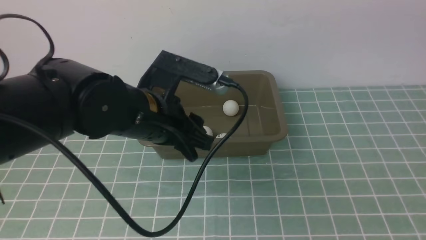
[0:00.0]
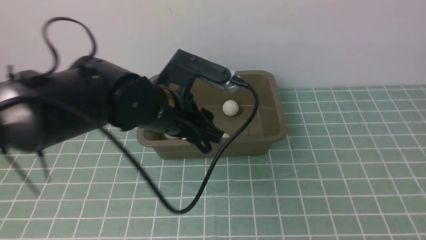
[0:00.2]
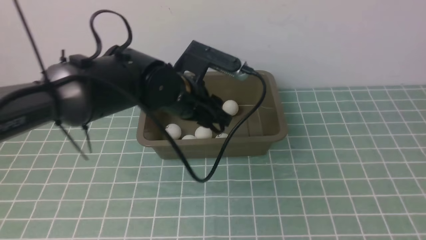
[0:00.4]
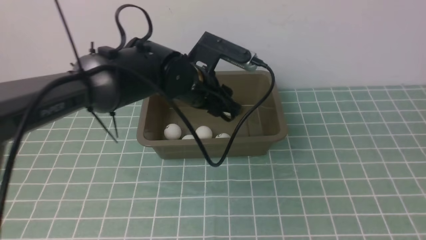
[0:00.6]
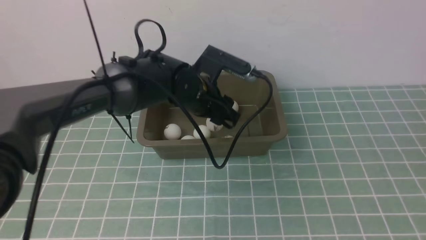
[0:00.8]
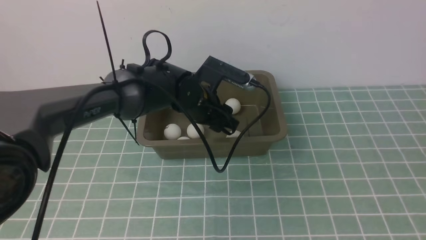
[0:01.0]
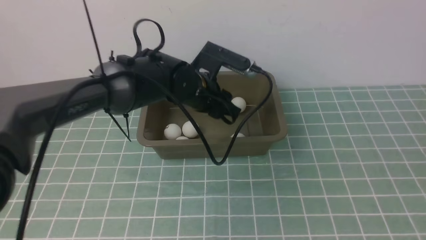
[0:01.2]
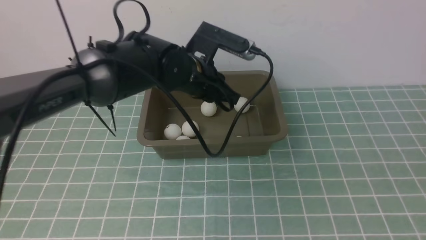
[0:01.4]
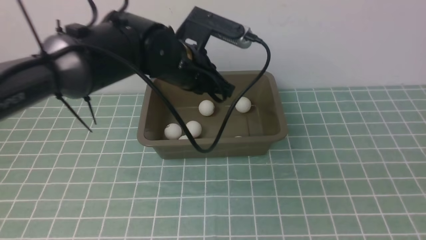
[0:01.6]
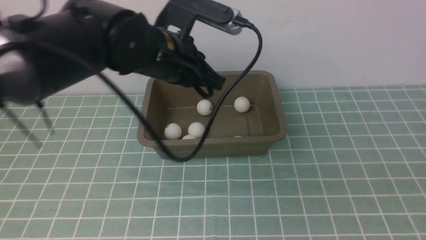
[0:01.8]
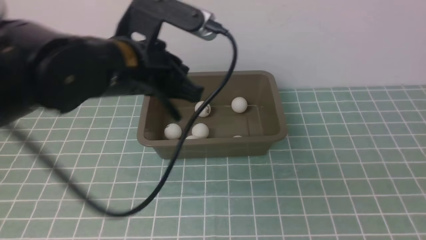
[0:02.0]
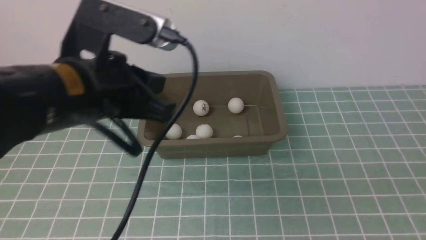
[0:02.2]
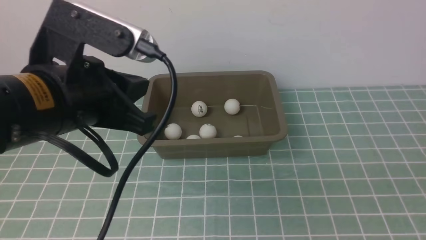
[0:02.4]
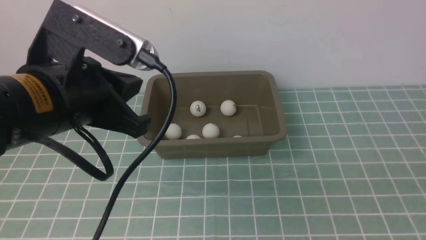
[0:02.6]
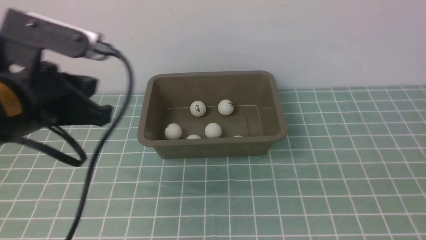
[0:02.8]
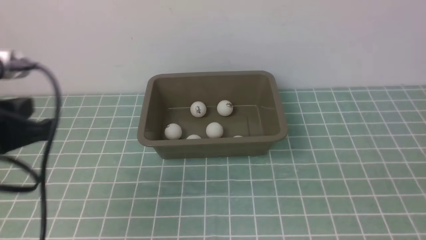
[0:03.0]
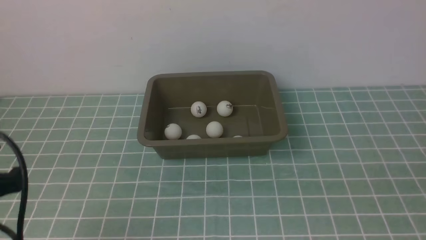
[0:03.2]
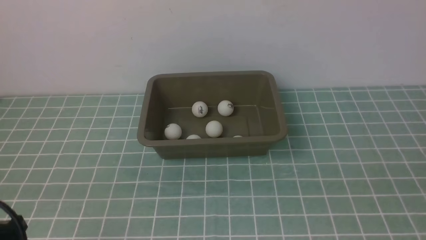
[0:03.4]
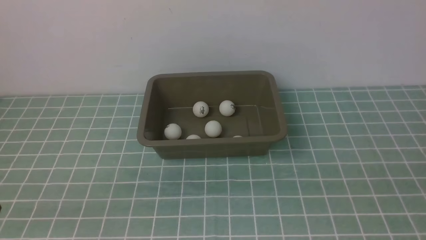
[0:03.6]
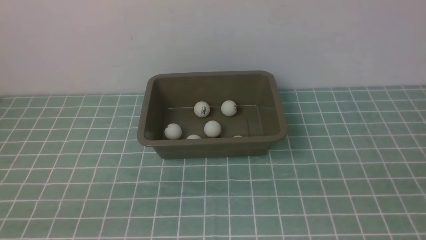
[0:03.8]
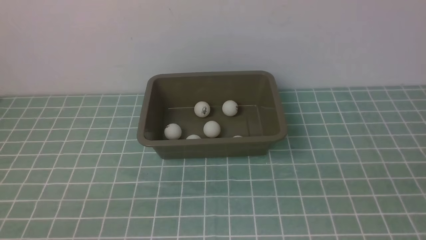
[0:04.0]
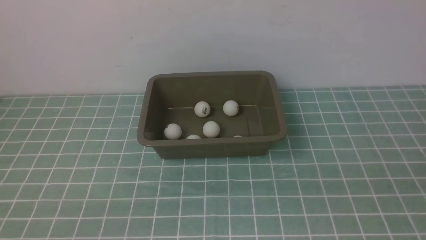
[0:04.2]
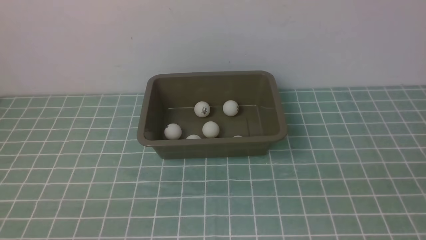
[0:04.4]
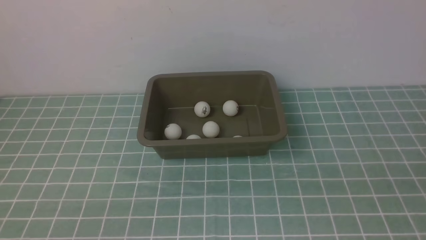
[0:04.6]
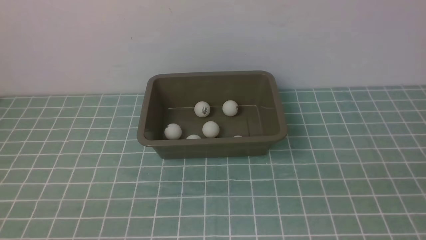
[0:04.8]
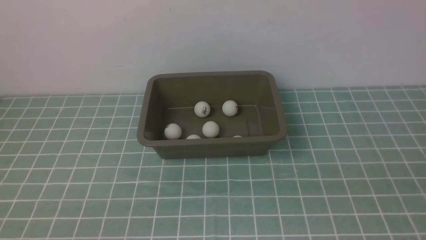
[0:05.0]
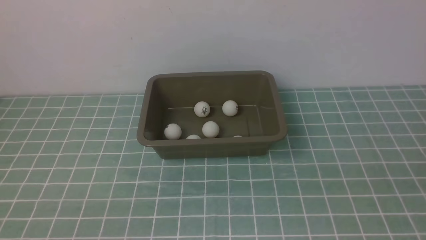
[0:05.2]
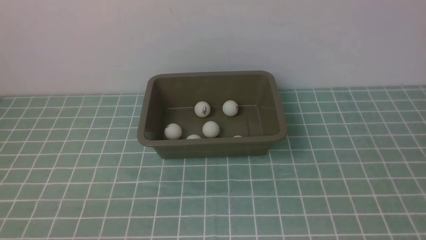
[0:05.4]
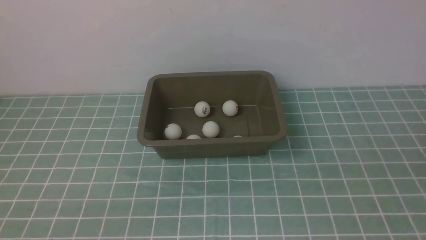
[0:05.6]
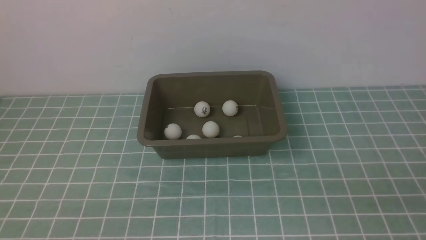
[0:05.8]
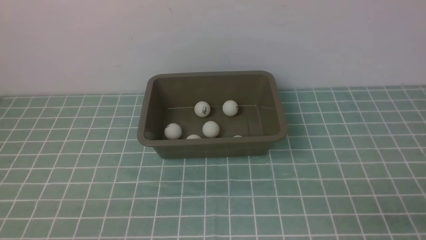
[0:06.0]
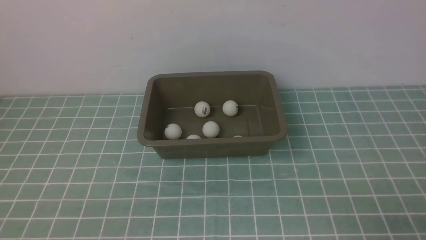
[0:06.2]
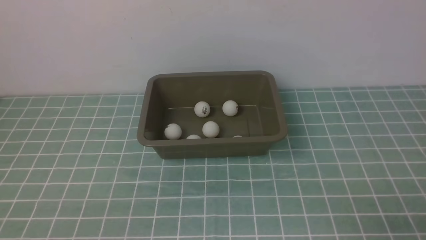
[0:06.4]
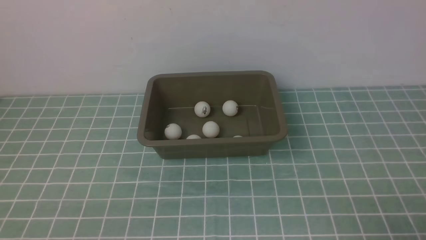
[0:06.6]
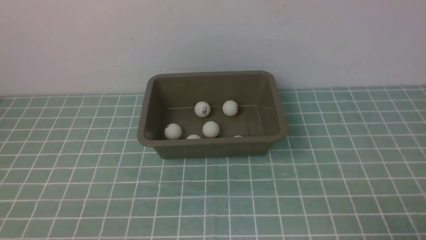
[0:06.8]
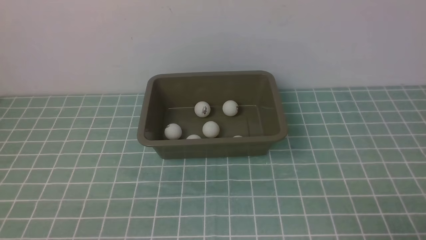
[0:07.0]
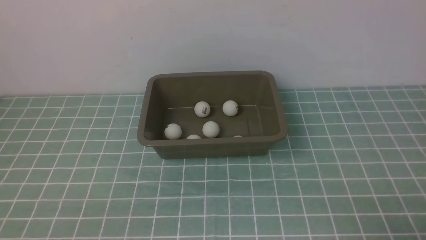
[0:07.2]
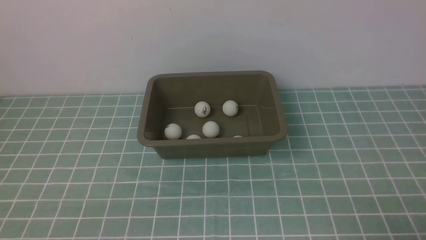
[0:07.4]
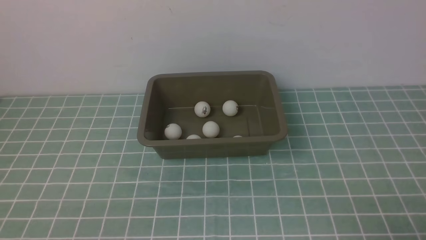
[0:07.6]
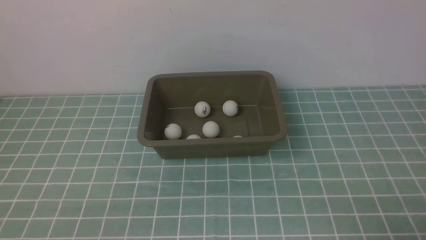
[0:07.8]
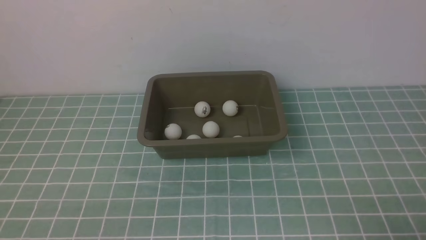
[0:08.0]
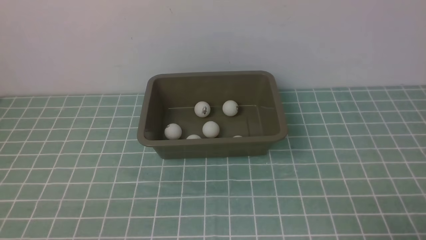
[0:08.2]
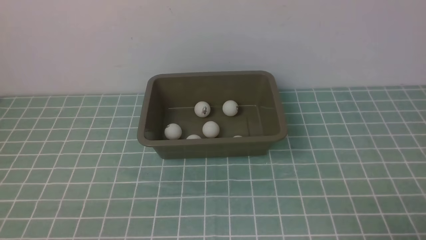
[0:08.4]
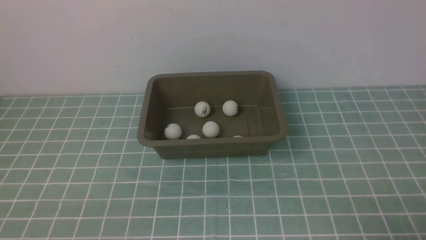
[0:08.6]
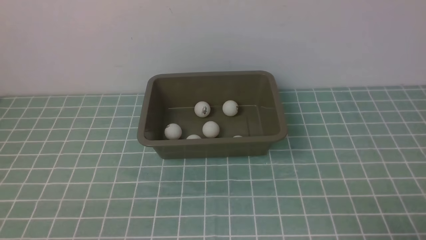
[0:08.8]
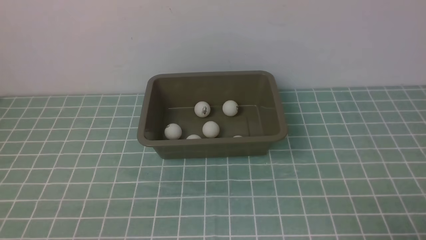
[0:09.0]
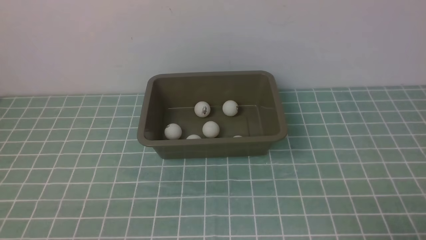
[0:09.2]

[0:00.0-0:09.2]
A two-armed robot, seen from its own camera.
Step, 0:00.0 to 0:00.8: use the left arm to put the table tennis ball into the box.
0:00.0 to 0:01.6: The right gripper moves backward and downward, roughly 25 cm; the left gripper heads forward, covering about 10 cm, and closes its fingers.
0:01.6 to 0:03.0: The left gripper heads to the left and backward, covering roughly 25 cm.
0:03.0 to 0:04.6: The left gripper heads downward and backward, covering about 20 cm.
0:07.6 to 0:09.2: The two grippers keep their place.
